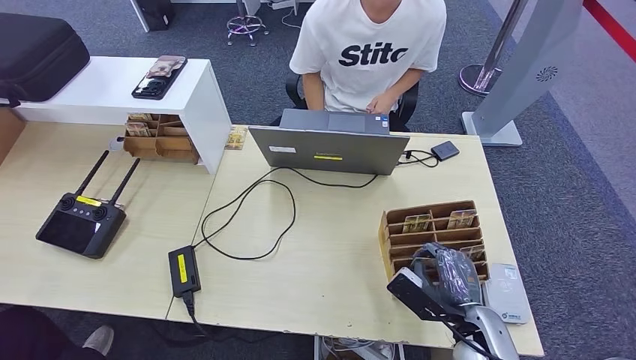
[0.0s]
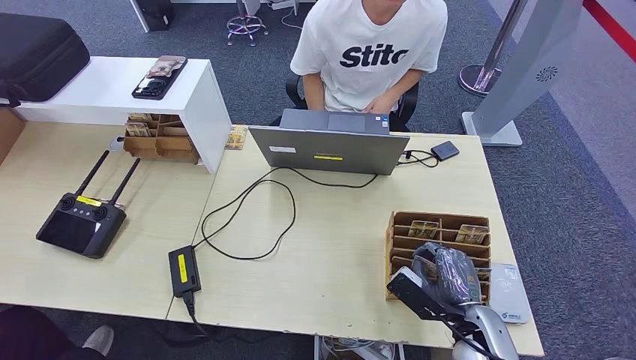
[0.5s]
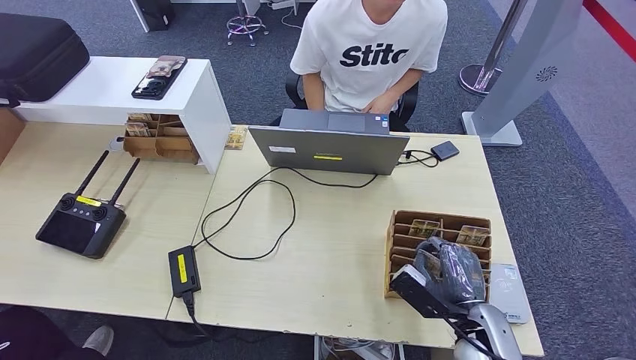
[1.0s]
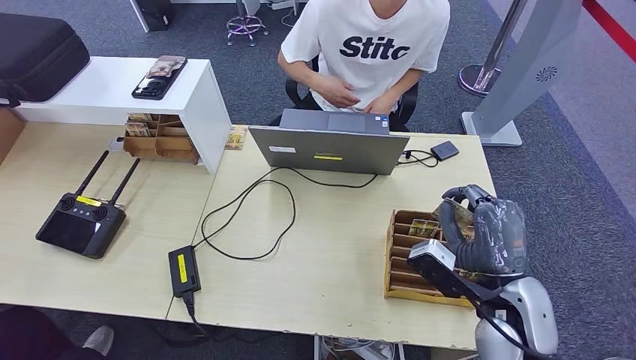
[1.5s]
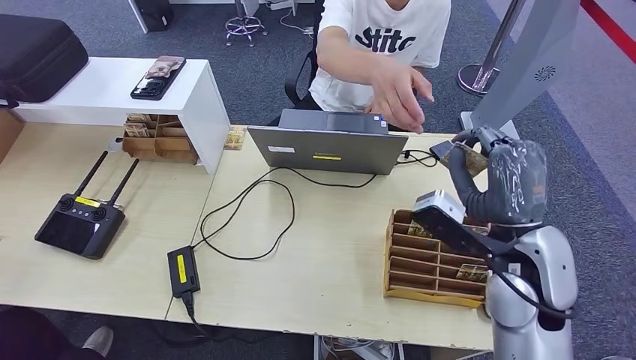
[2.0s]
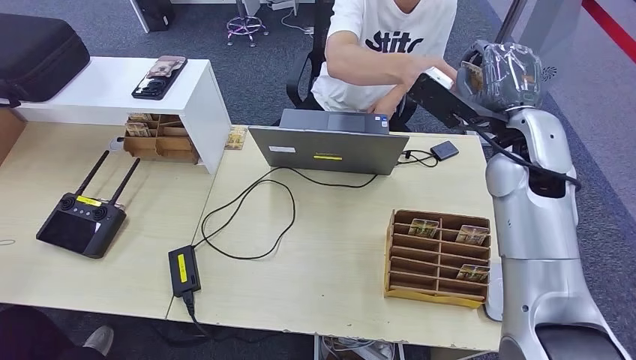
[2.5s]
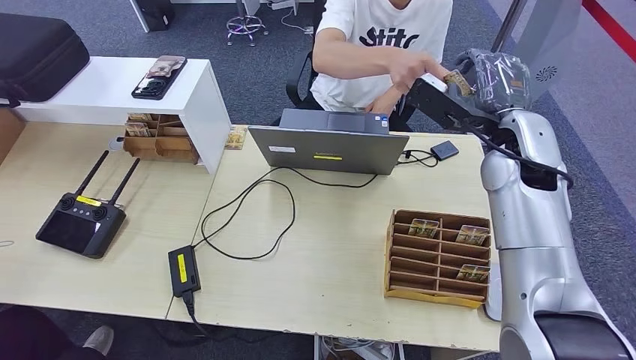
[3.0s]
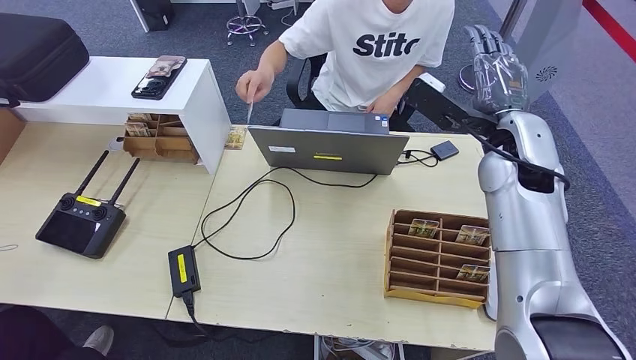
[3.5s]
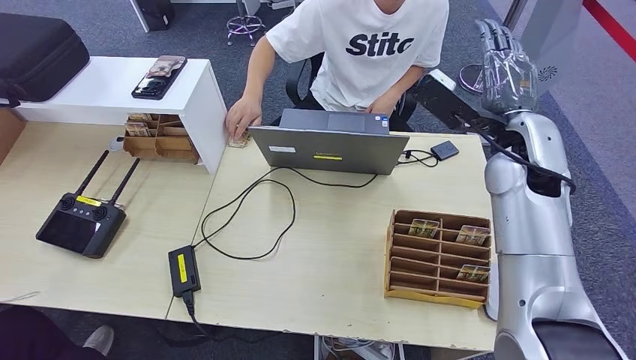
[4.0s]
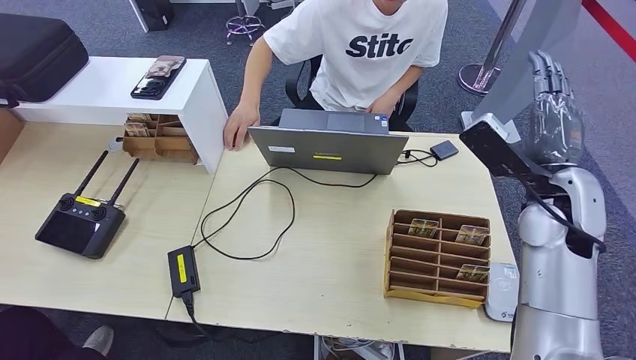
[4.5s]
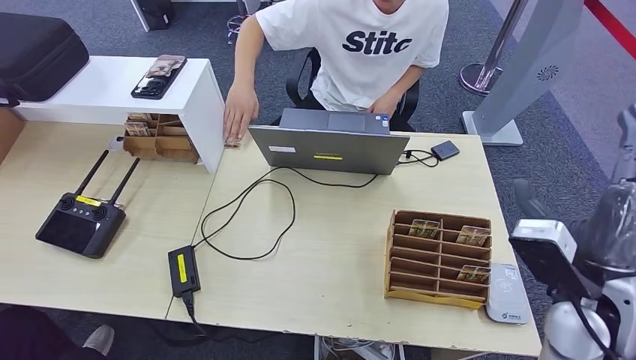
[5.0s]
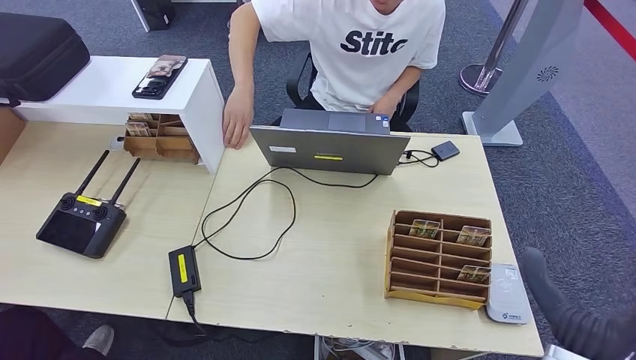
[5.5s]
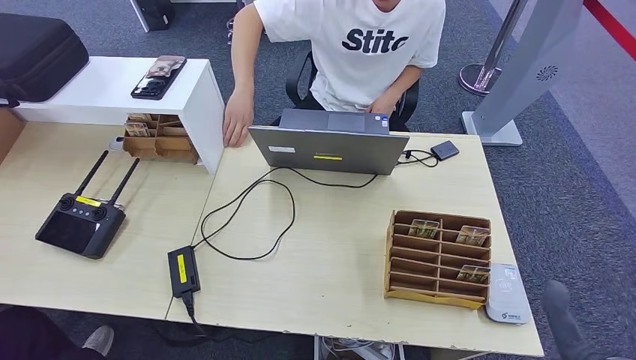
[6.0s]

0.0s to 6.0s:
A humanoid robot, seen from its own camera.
Step, 0.0s to 2.0s: Pick up the room key from the key card box.
Step, 2.5s to 6.0s: Hand the room key to the person.
0.0s to 2.0s: The right hand heads upward, covering roughly 20 cm.
2.0s to 4.0s: The right hand travels forward by some 15 cm.
4.0s to 6.0s: The right hand goes approximately 35 cm backward.

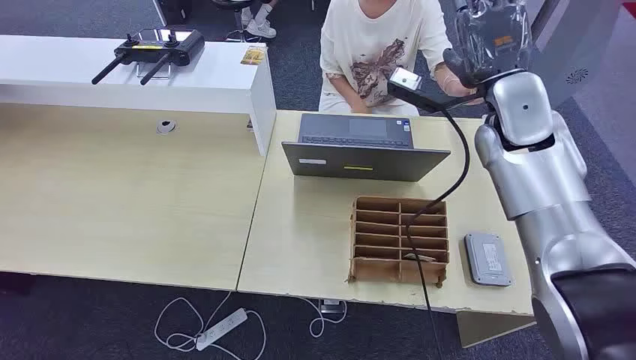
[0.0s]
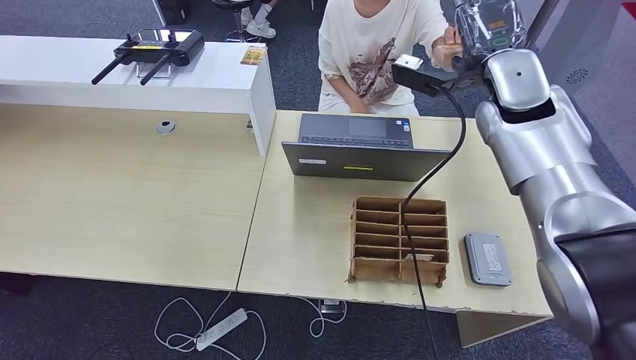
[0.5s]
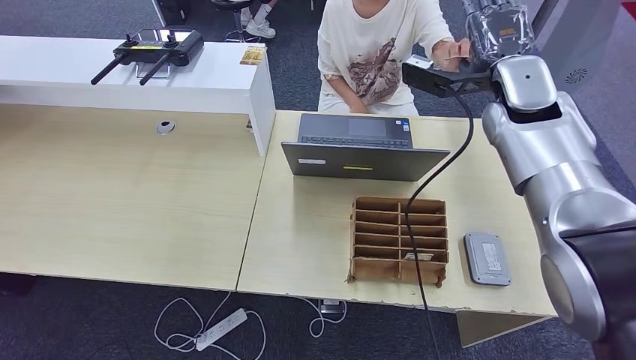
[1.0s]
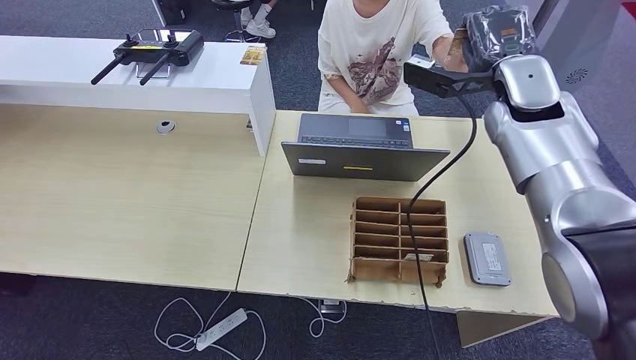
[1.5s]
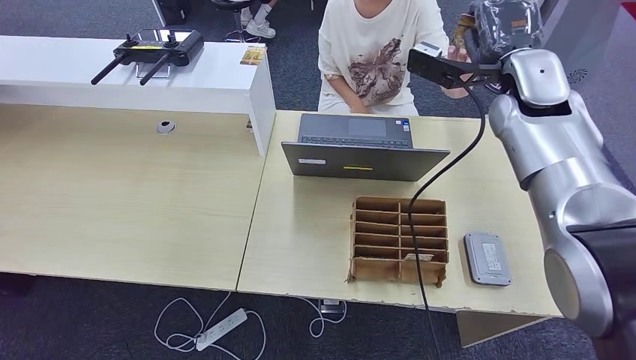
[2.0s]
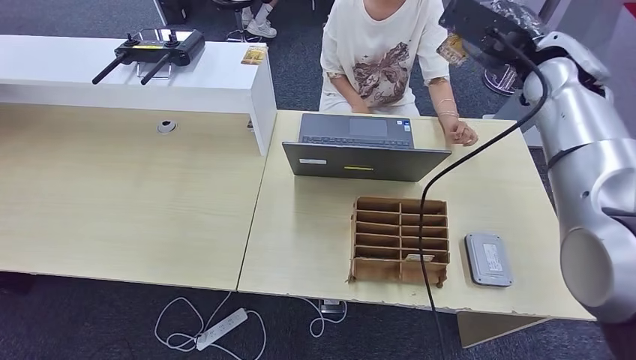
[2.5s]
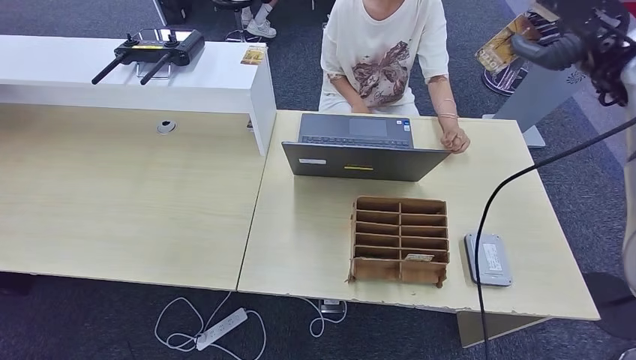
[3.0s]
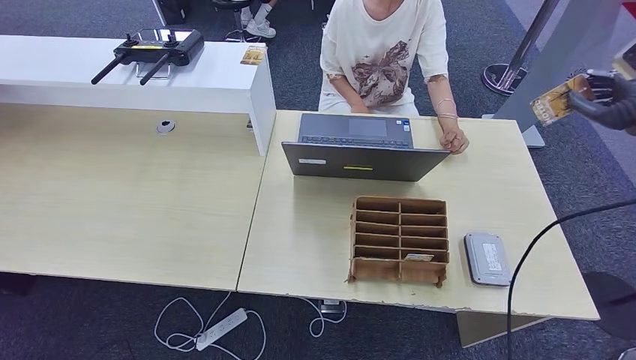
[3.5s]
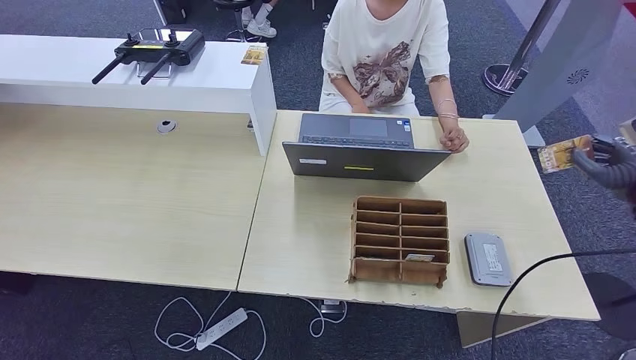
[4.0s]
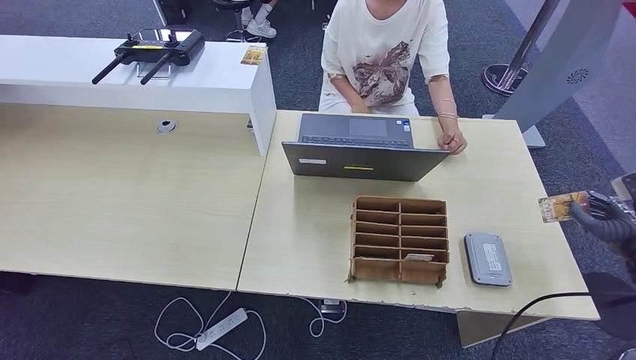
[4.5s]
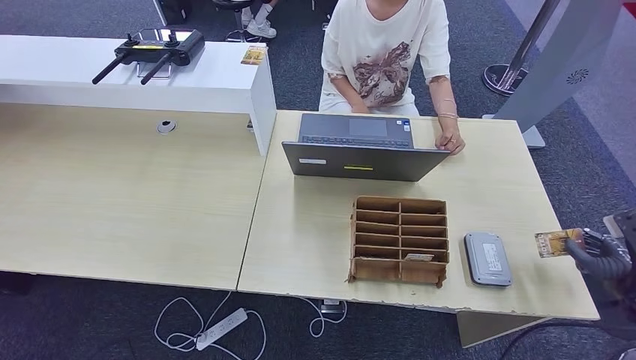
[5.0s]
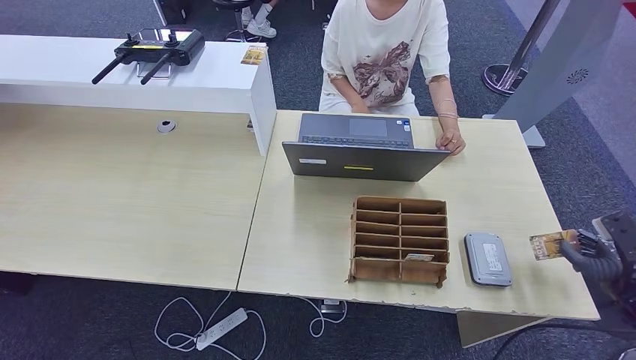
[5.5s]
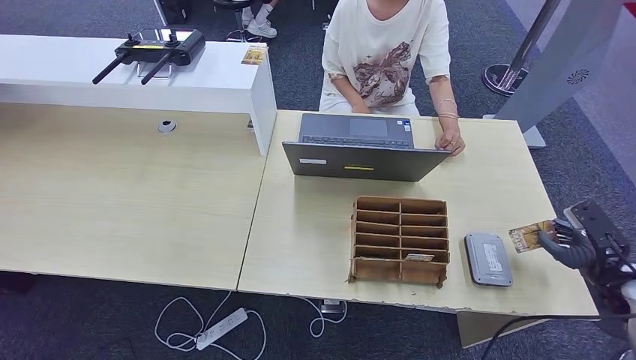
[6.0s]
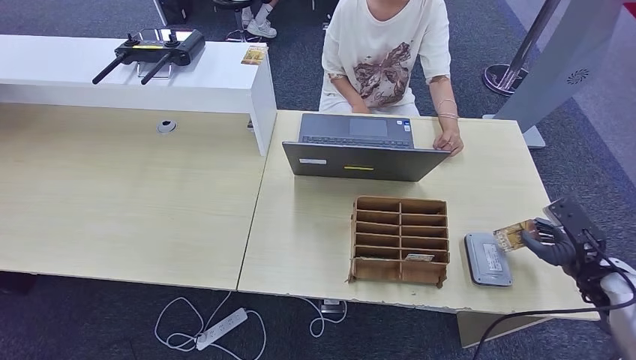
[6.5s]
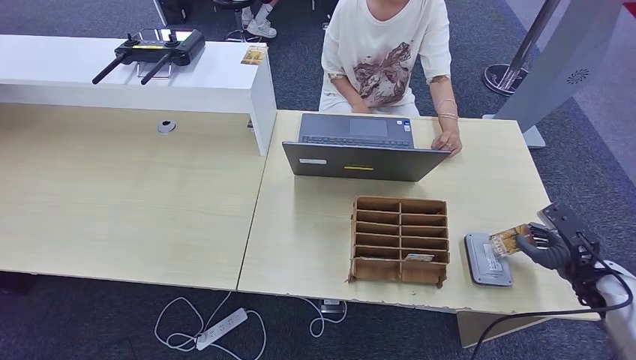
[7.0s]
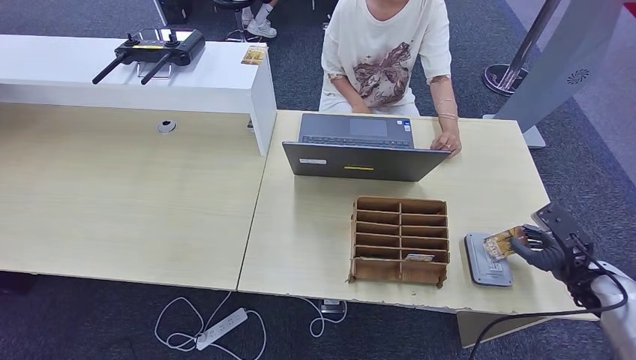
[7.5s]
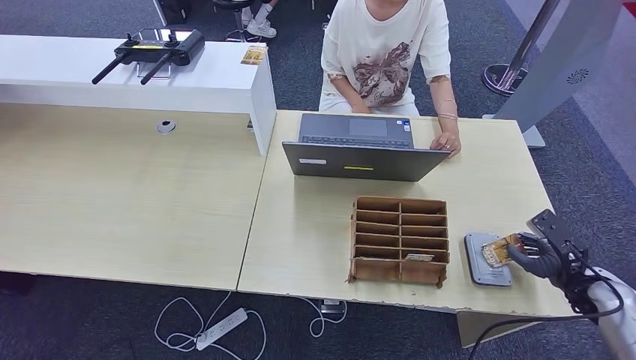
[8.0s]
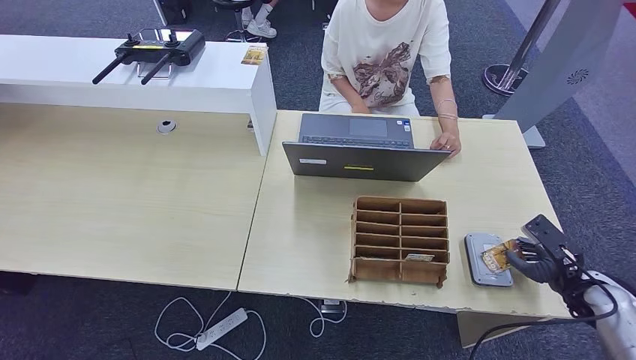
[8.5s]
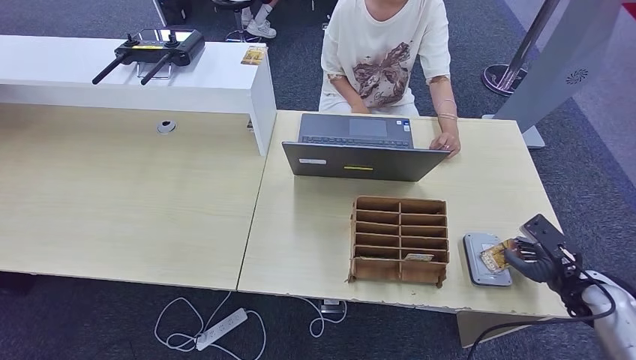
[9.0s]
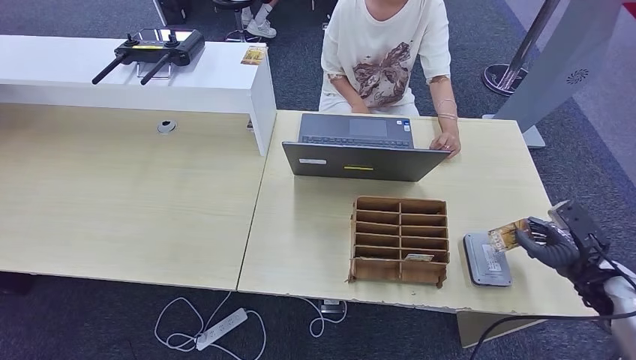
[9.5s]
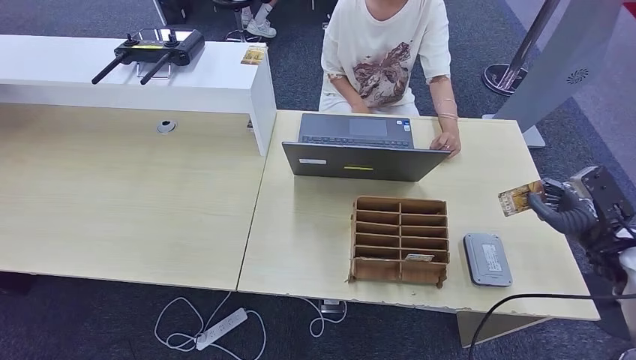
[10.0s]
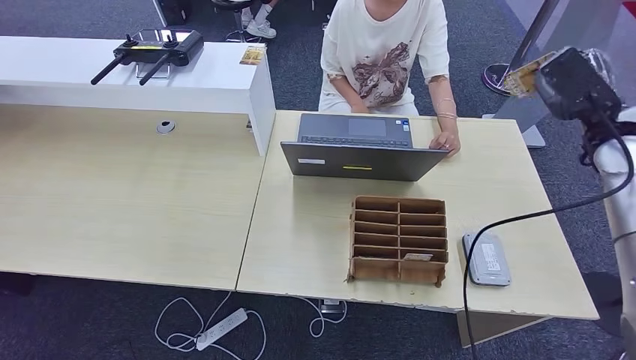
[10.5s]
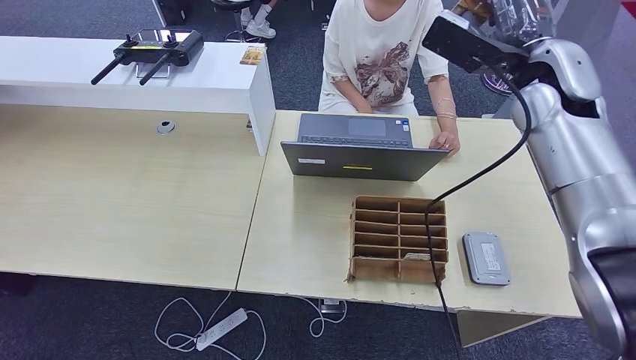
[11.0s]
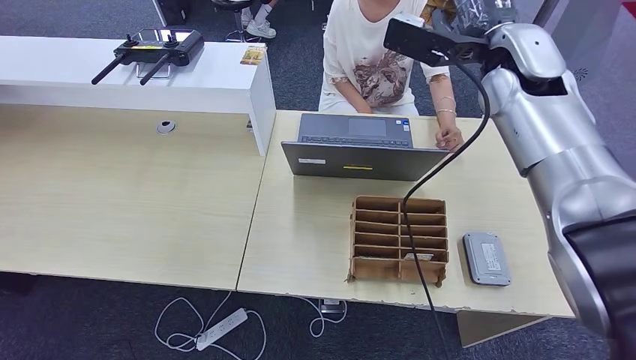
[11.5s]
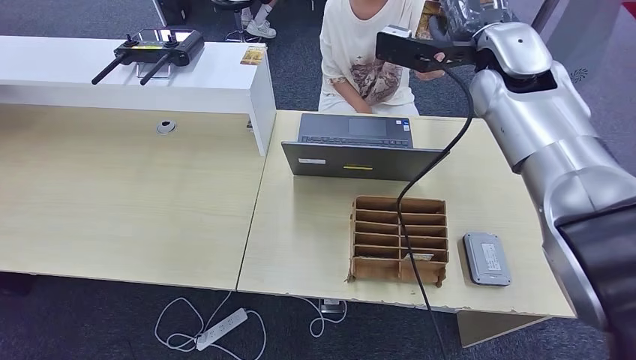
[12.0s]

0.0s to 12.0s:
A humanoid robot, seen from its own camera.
Step, 0.0s to 3.5s: Take the ID card from the person's hand.
Step, 4.0s to 10.5s: Place the ID card on the card reader.
2.0s to 4.0s: The right hand heads to the right, downward and backward, covering about 30 cm.
4.0s to 6.0s: The right hand heads downward and backward, covering some 15 cm.
6.0s to 8.0s: The hands move only a little.
8.0s to 10.0s: The right hand is displaced upward by some 10 cm.
10.0s to 12.0s: The right hand goes some 40 cm to the left, upward and forward.

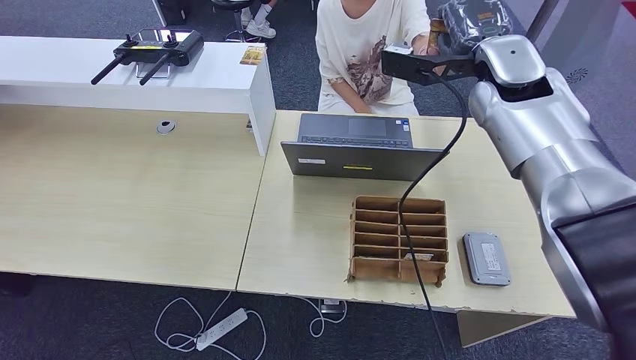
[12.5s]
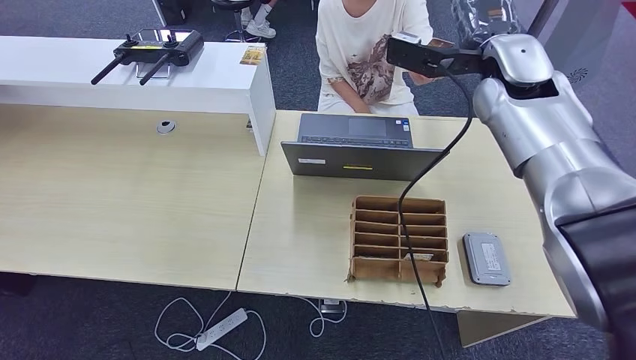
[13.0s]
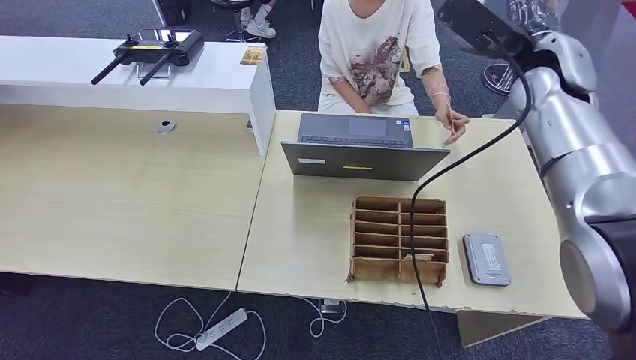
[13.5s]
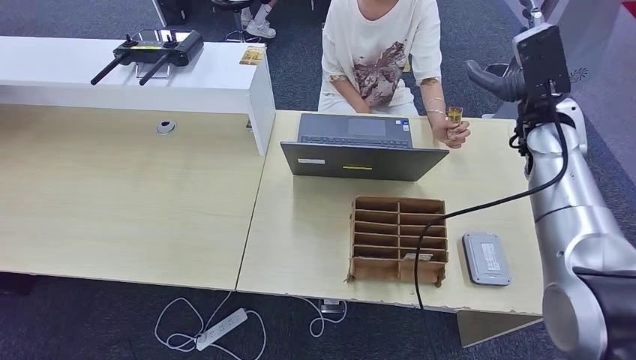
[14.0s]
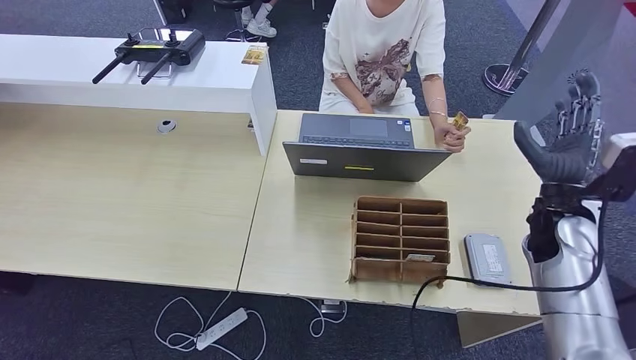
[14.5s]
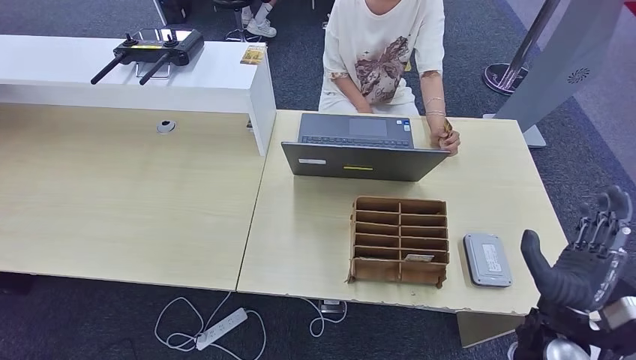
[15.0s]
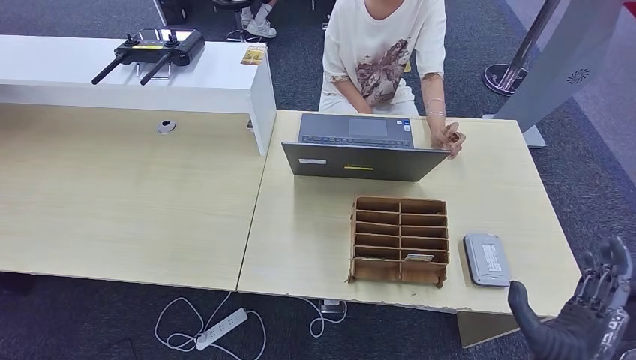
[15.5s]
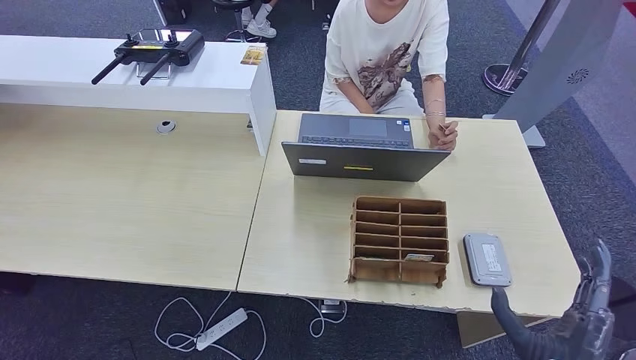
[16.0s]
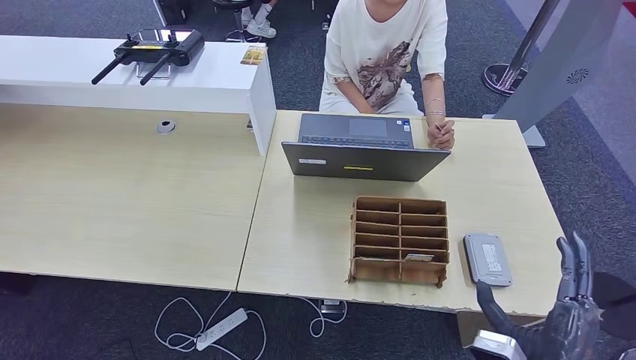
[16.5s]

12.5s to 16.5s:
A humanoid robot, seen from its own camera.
Step, 12.5s to 14.5s: Hand the ID card to the person.
14.5s to 16.5s: The right hand travels backward by some 25 cm.
